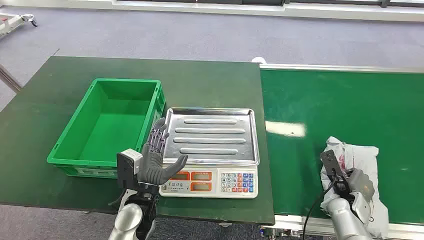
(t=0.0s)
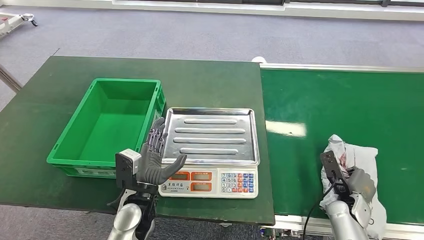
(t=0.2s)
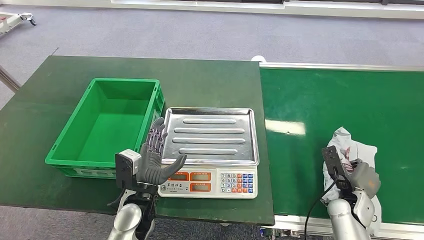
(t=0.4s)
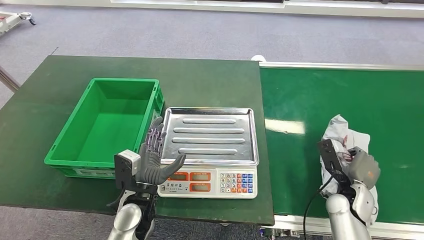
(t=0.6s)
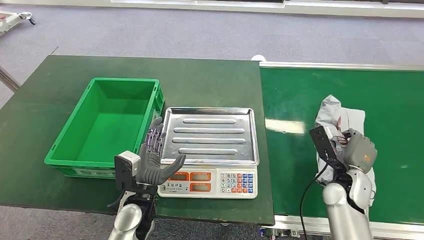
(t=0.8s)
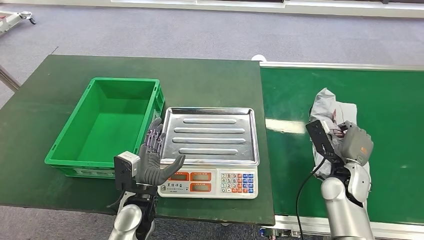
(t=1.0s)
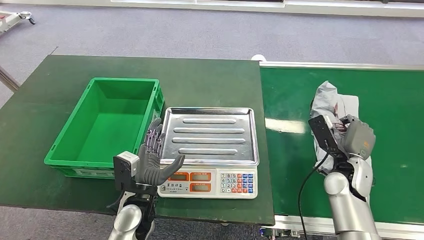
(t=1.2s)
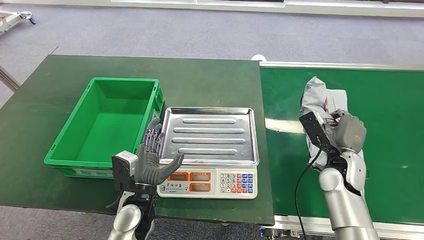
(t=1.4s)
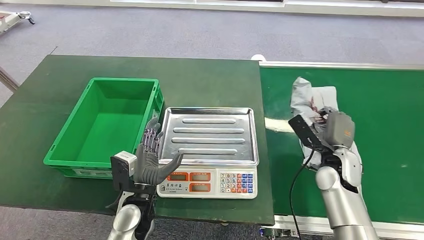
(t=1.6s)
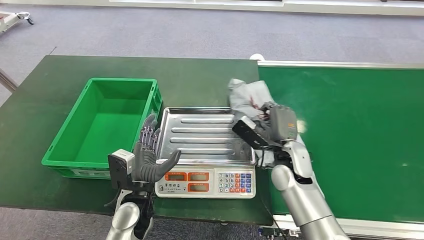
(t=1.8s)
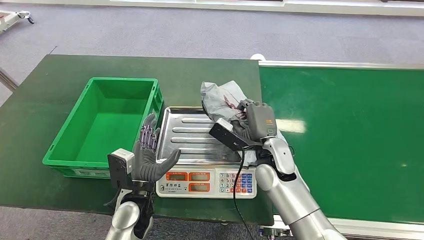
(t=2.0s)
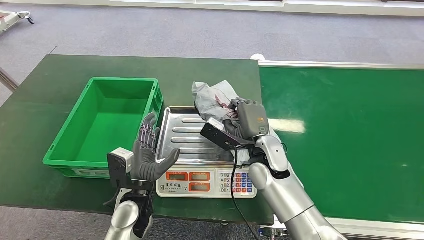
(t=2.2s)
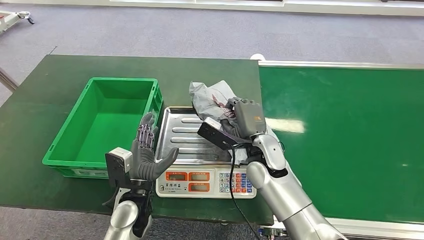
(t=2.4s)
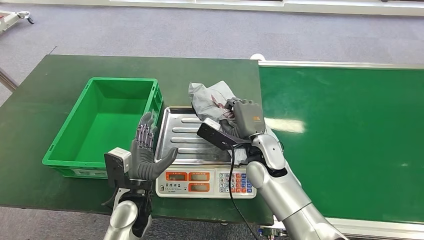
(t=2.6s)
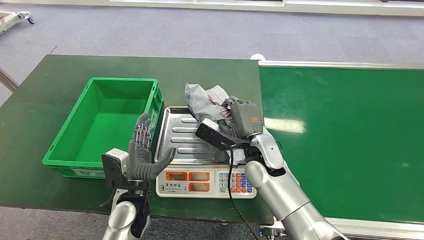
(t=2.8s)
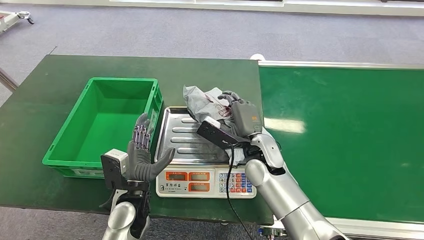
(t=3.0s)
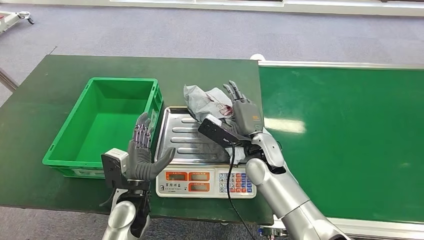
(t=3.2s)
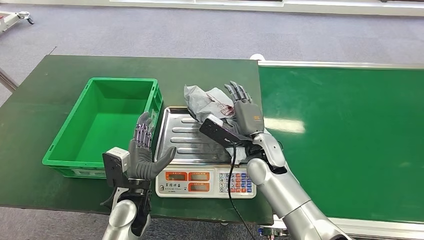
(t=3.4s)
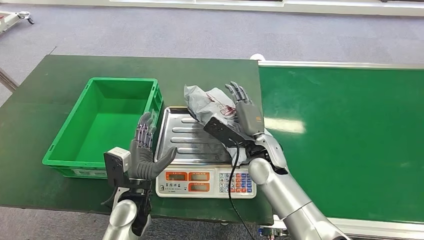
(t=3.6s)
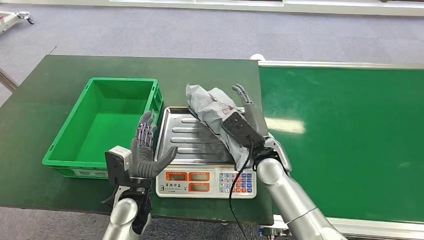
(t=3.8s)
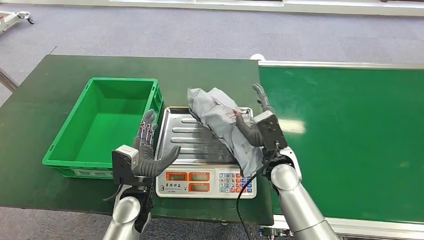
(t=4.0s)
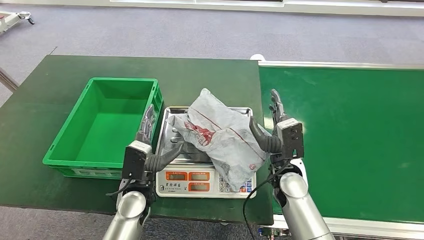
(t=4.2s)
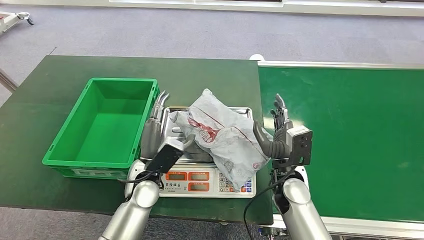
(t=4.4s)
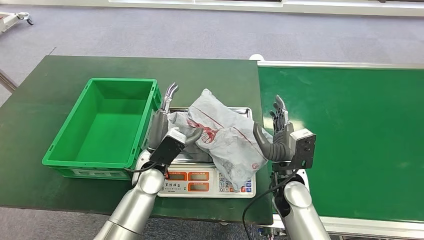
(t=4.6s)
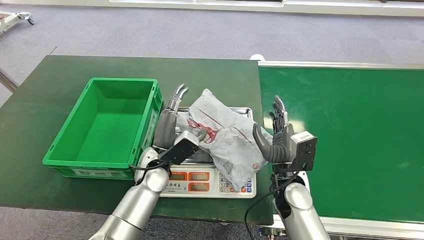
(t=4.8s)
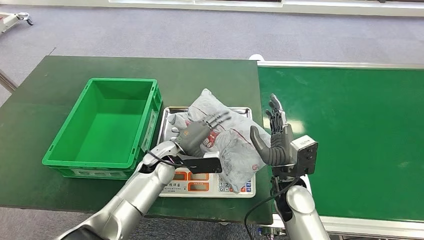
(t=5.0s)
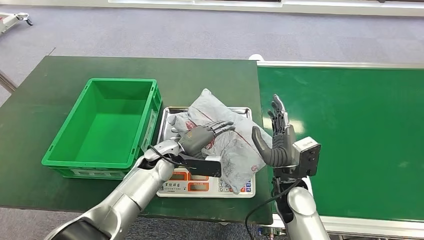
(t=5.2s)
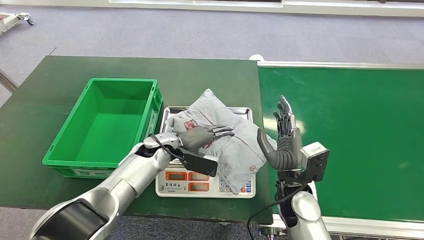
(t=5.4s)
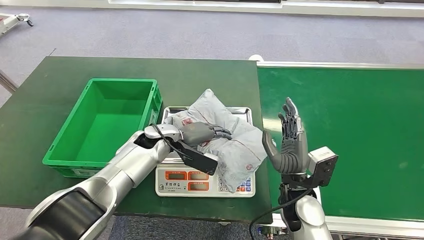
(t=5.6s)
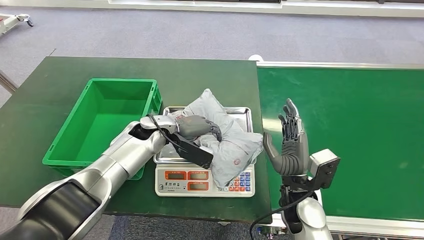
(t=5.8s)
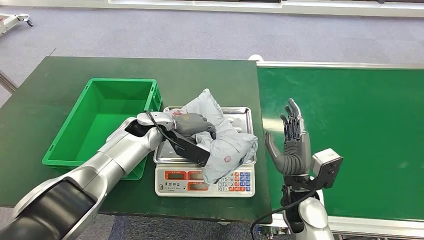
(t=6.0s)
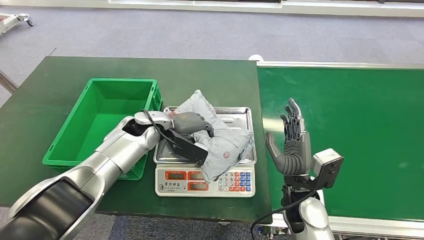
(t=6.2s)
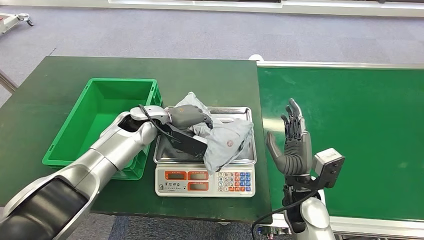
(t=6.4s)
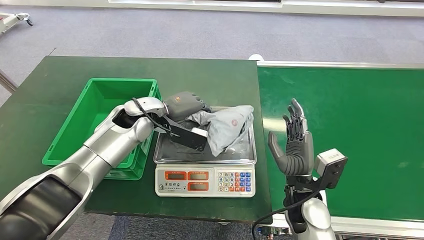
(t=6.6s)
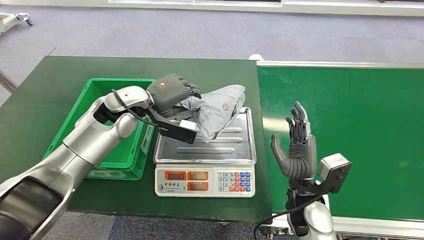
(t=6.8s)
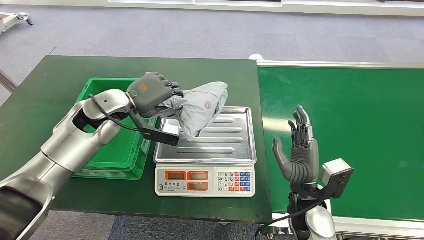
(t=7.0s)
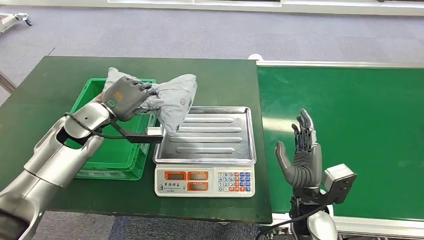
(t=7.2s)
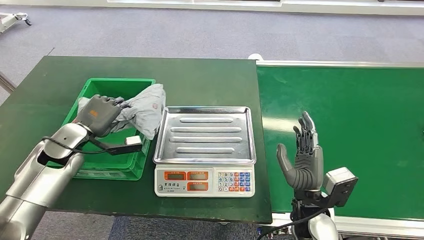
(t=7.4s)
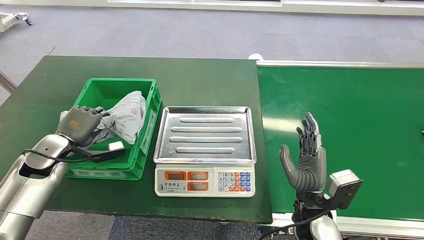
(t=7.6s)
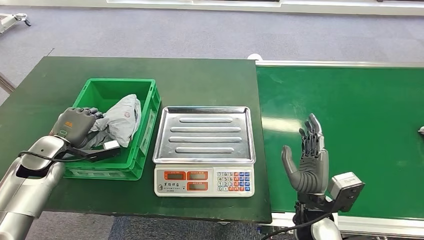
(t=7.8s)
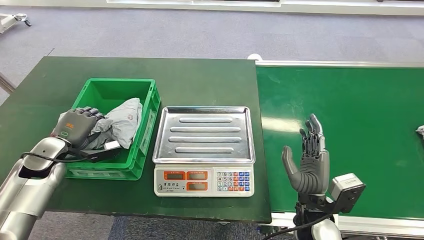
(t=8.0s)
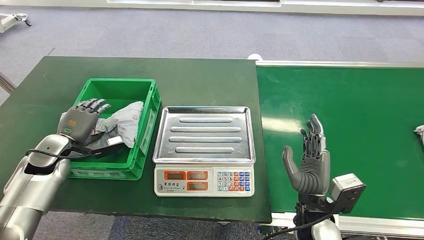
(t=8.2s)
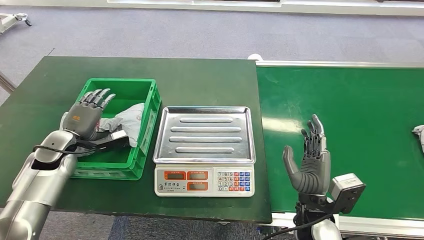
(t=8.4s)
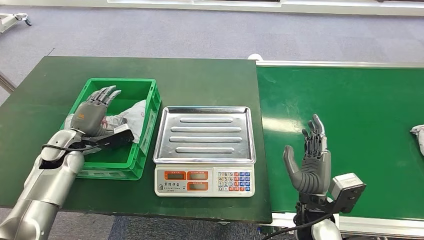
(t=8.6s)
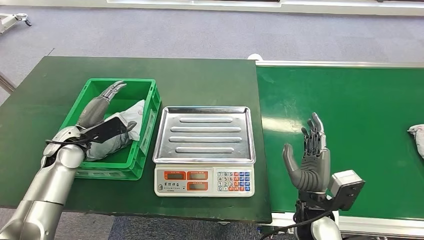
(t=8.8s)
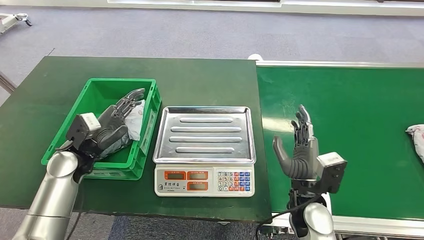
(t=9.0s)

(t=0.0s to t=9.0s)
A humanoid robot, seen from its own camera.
Step, t=0.0s - t=1.6s: Pick up the package from the conveyor belt.
Step, t=1.8s - t=5.2s: Place the package onto the inbound machine.
Step, t=5.4s - t=7.0s: Pick up the package from the inbound machine.
Step, t=7.2s - t=9.0s: Place the package into the parcel locker.
t=3.0s - t=4.4s: The right hand goes about 5 cm to the right; the left hand moves forward, roughly 5 cm.
t=7.6s - t=9.0s: The left hand goes about 10 cm to the right.
